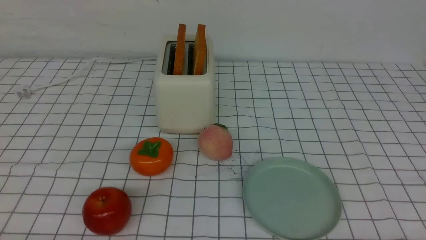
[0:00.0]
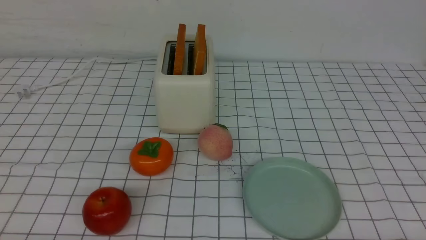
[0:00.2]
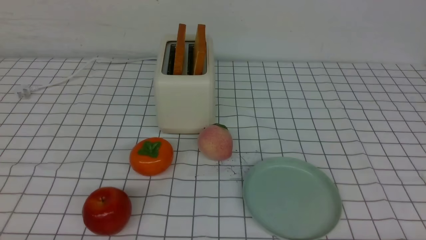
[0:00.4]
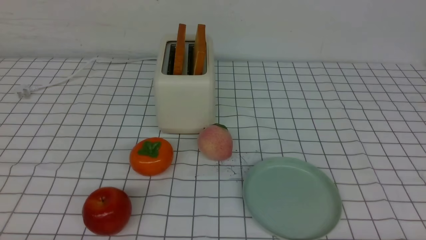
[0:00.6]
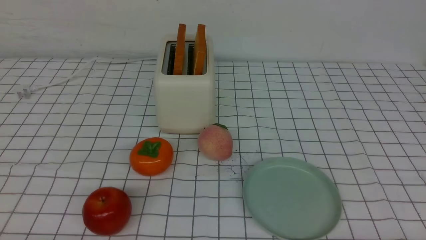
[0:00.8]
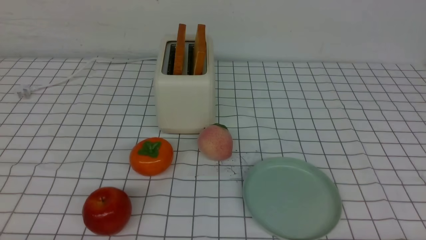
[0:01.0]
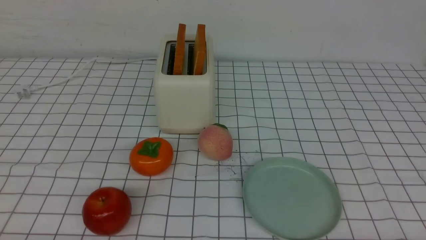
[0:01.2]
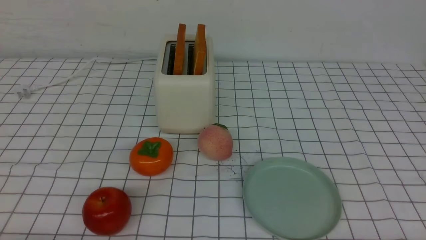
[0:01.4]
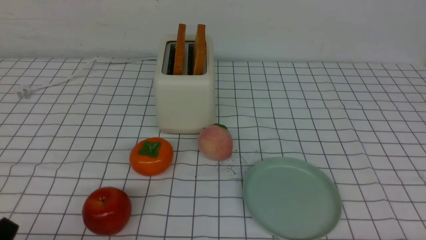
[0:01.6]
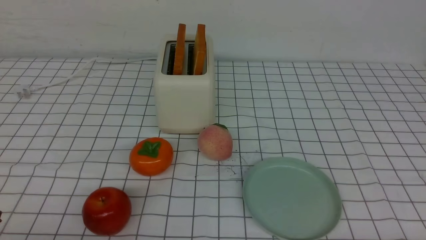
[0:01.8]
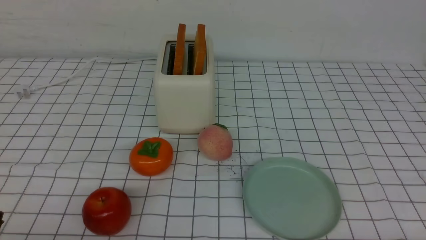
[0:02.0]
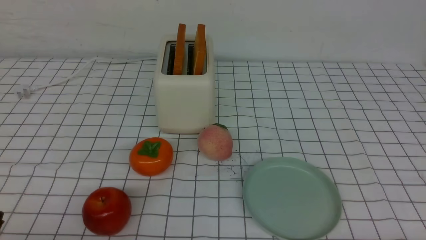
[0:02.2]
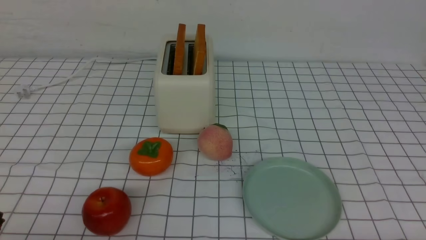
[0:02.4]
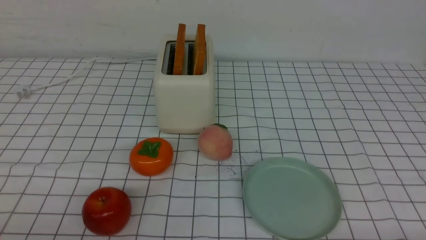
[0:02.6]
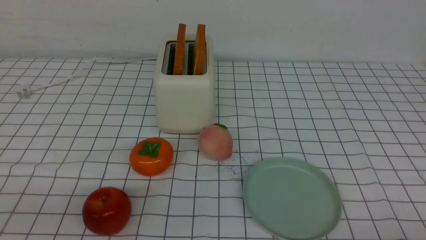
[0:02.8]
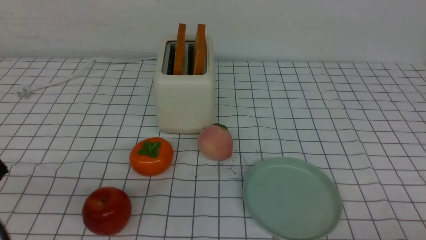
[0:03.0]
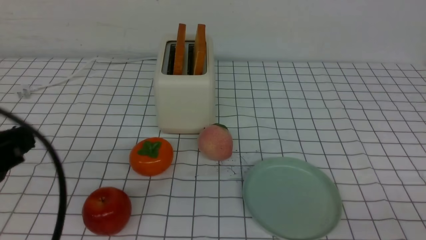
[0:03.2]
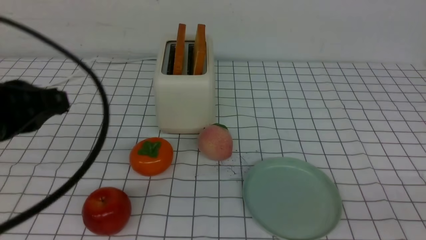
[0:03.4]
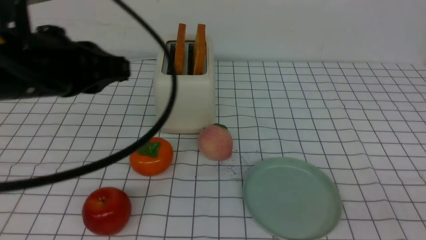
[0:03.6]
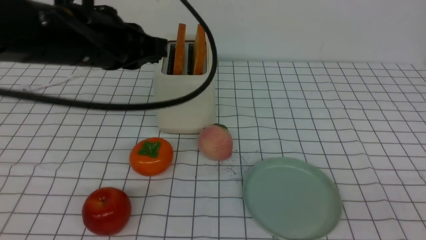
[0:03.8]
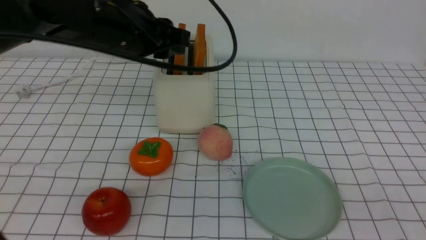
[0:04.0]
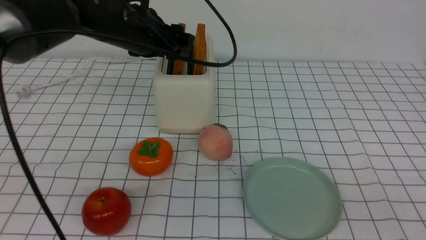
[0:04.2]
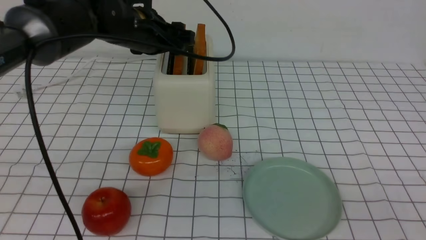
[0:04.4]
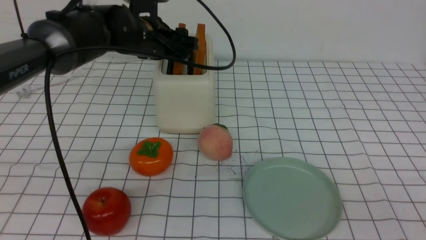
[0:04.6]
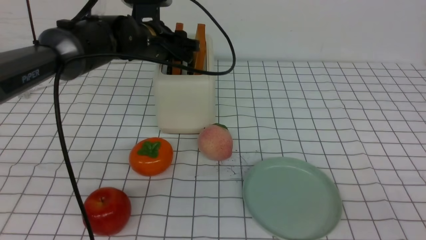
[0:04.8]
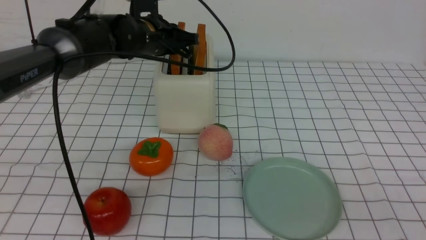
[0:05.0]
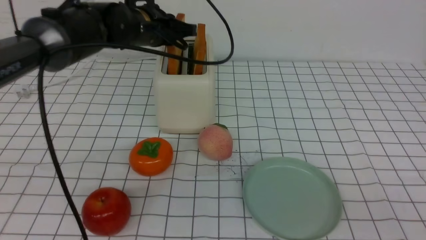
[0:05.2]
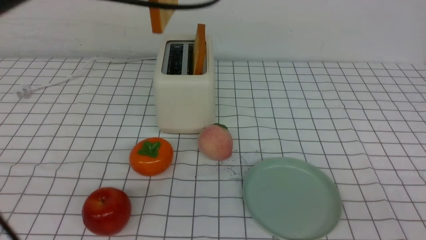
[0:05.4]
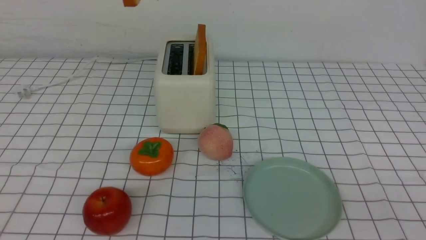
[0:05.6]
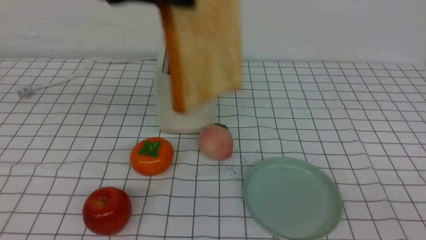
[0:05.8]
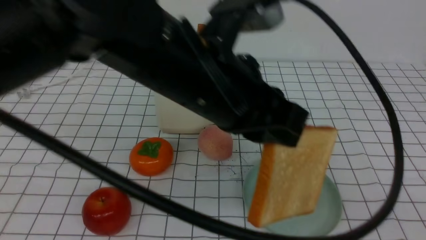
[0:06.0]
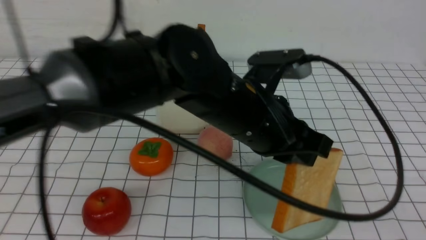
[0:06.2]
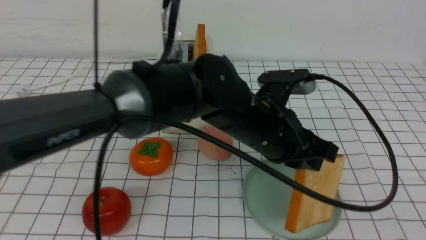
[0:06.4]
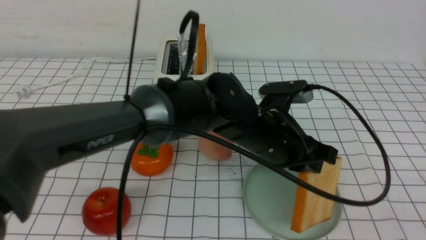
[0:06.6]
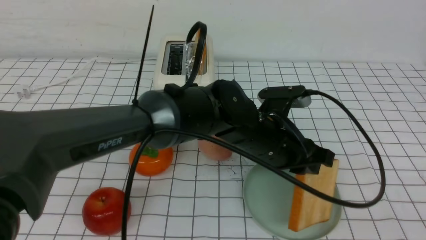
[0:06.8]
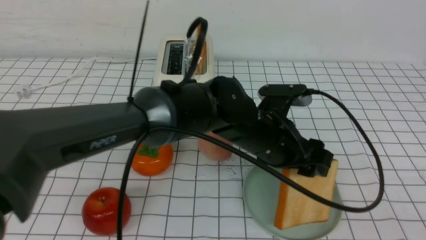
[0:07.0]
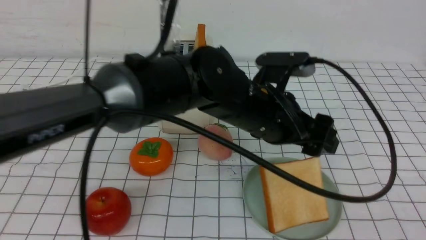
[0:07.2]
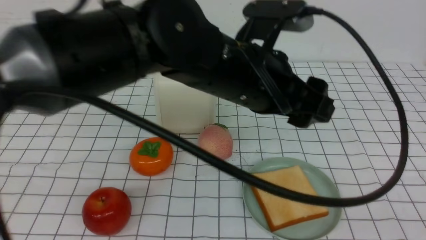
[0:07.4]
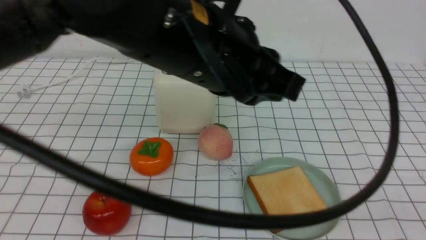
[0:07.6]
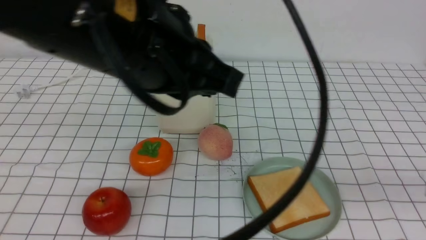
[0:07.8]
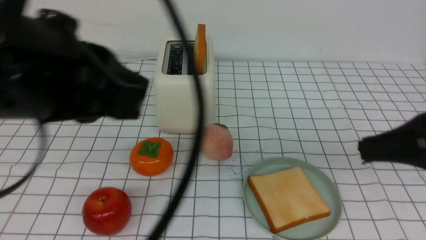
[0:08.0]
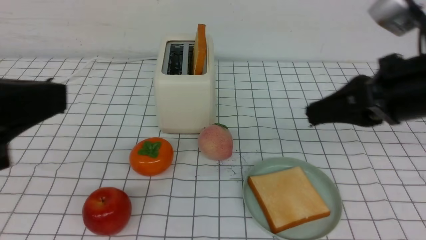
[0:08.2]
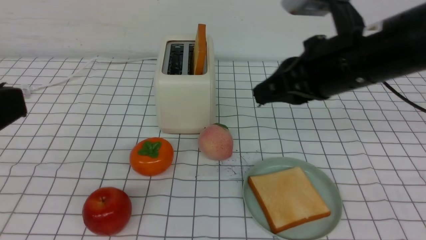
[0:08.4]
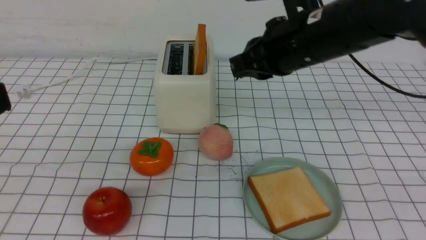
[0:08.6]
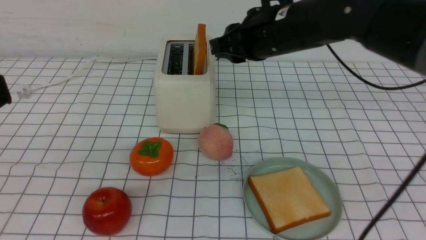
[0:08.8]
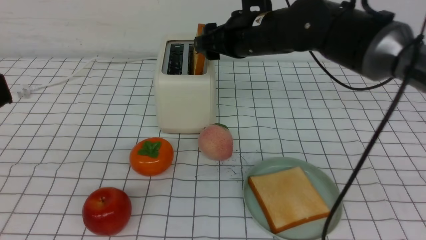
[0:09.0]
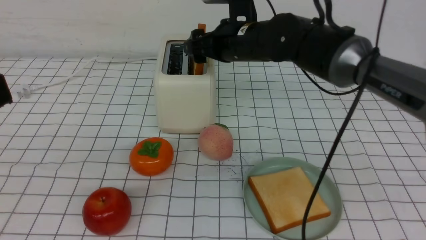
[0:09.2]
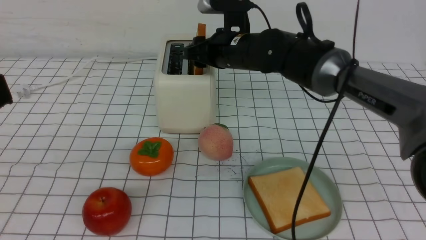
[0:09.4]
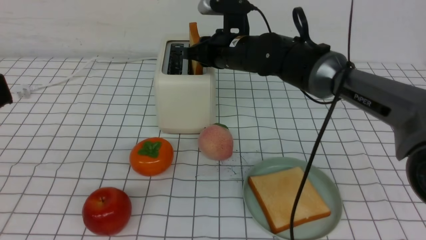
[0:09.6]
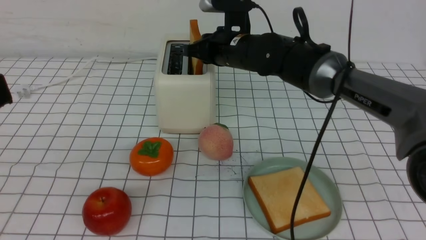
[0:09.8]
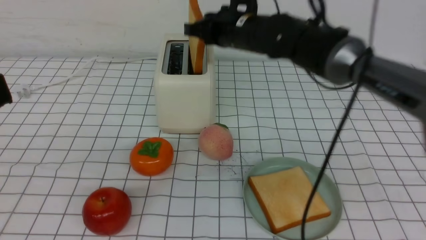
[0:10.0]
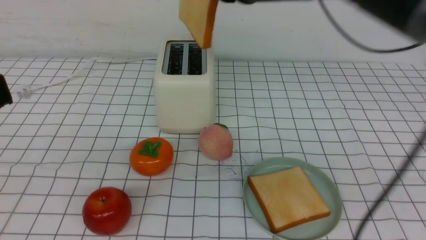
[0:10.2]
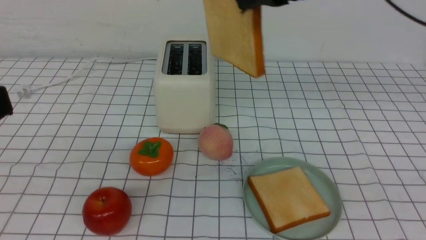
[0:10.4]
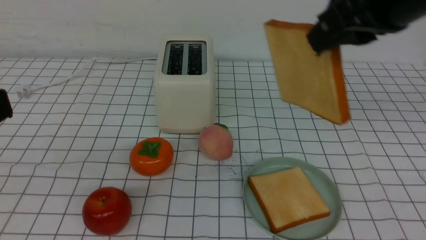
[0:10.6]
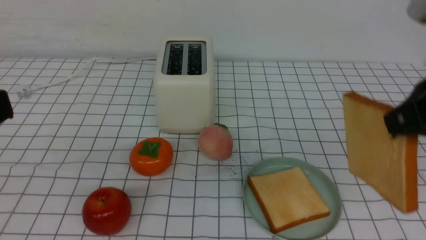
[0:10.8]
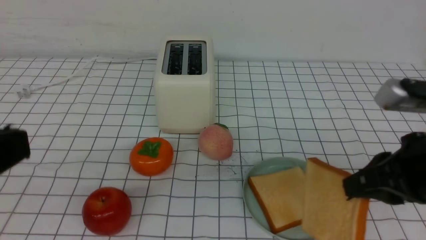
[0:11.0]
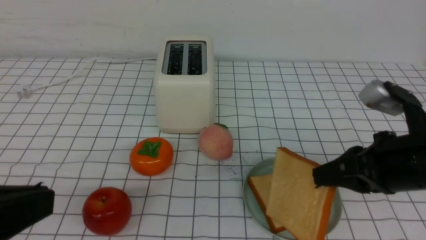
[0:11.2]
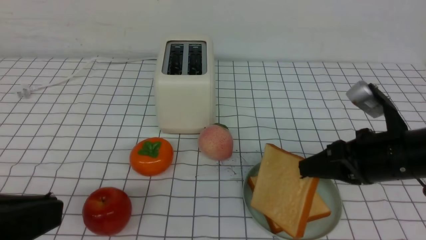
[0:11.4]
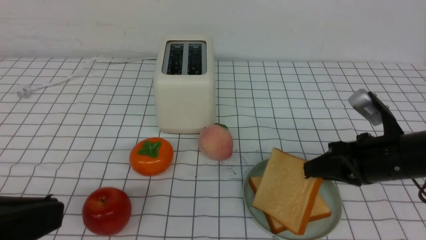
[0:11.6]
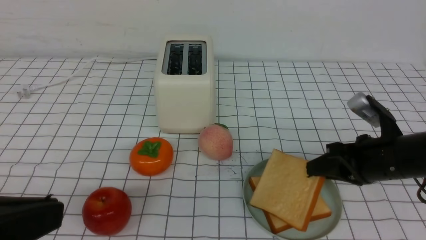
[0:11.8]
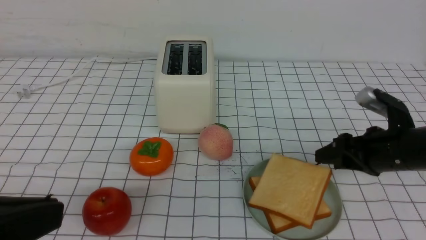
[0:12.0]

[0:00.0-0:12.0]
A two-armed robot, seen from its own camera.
Task of the whole recording: take toasted bread from bread machine on white checkered table place on plate.
Step, 0:00.0 to 0:05.2: use the left arm to take out a slice of bread.
Step, 0:05.4 to 0:07.2: use the left arm to put a slice of bread into the empty plate.
Step, 0:07.4 to 0:10.0: use the right arm to take out a slice of bread.
Step, 0:10.2 to 0:12.0: use the right arm to put a slice of bread into the plate.
0:03.0 to 0:04.4: The left gripper travels forward by approximately 35 cm, and opens its fingers, while the right gripper goes about 15 cm upward, and closes its fingers.
0:04.4 to 0:06.0: The left gripper goes approximately 20 cm backward and to the right, and closes up.
0:06.0 to 0:07.6: The left gripper travels downward and back again, some 15 cm each way, and opens and closes again.
0:07.6 to 0:09.0: The right gripper heads forward and to the left, covering about 40 cm, and opens its fingers; the left gripper moves to the left and backward, some 25 cm, and closes.
0:09.0 to 0:10.4: The right gripper shifts roughly 20 cm upward, backward and to the right, and closes up.
0:10.4 to 0:12.0: The right gripper goes roughly 25 cm downward and to the right, and opens its fingers.

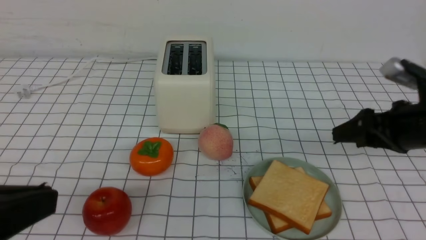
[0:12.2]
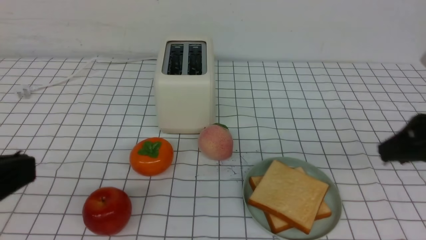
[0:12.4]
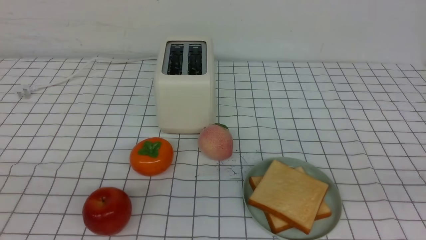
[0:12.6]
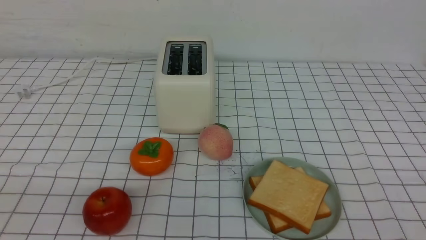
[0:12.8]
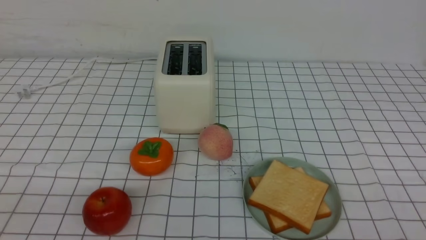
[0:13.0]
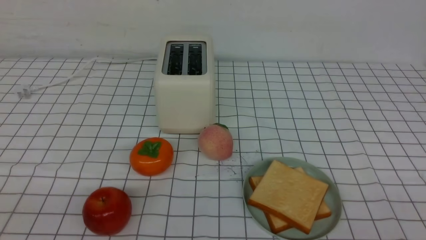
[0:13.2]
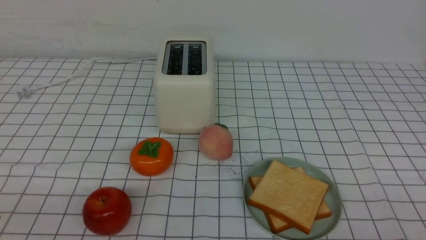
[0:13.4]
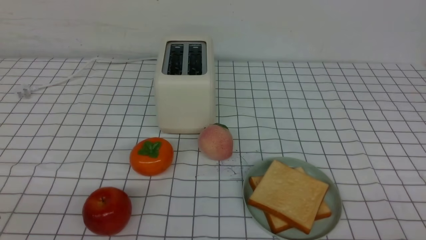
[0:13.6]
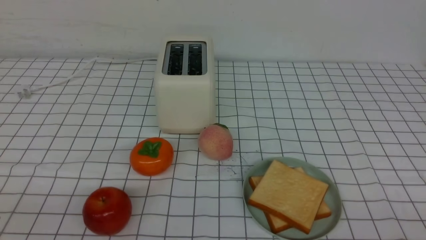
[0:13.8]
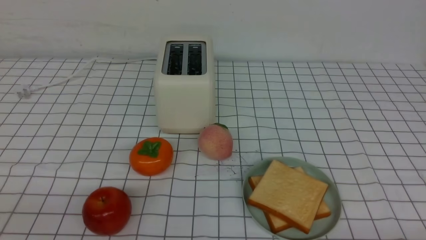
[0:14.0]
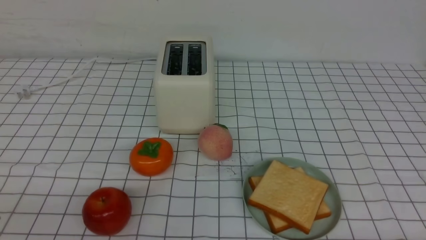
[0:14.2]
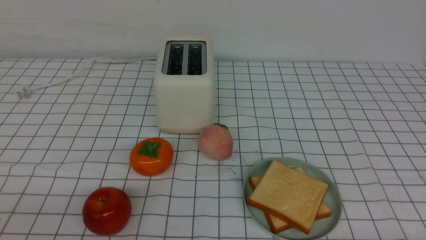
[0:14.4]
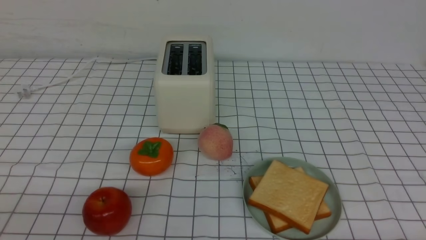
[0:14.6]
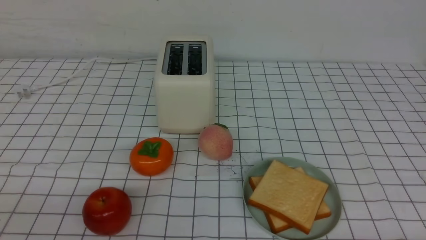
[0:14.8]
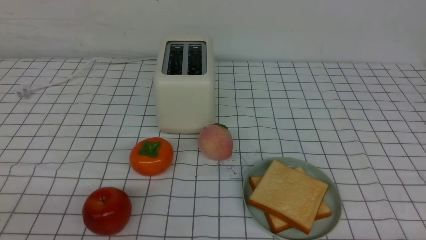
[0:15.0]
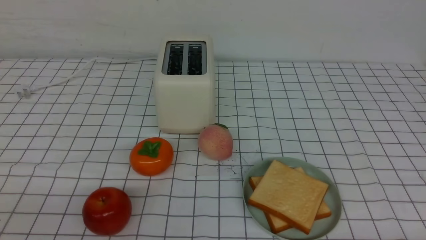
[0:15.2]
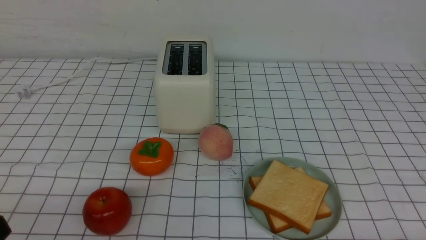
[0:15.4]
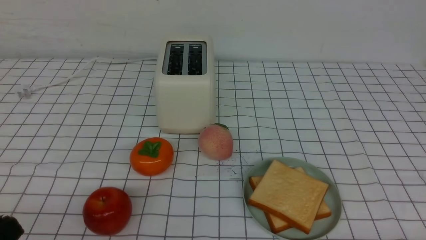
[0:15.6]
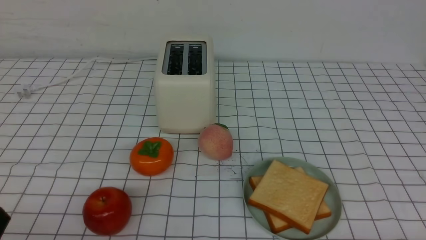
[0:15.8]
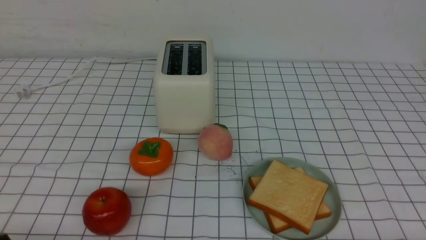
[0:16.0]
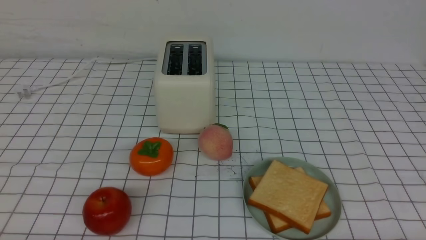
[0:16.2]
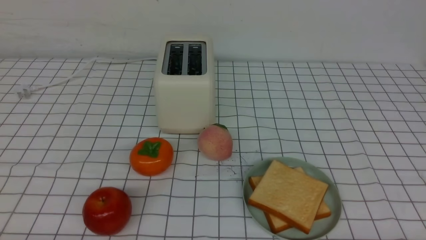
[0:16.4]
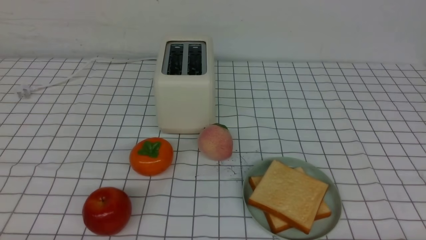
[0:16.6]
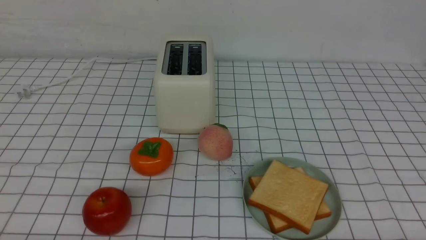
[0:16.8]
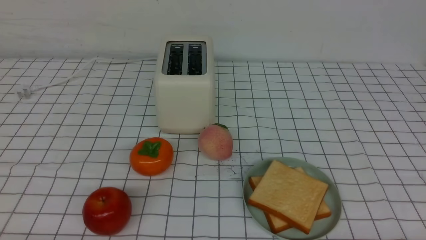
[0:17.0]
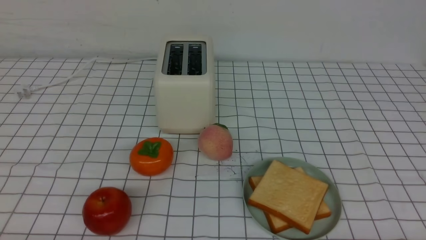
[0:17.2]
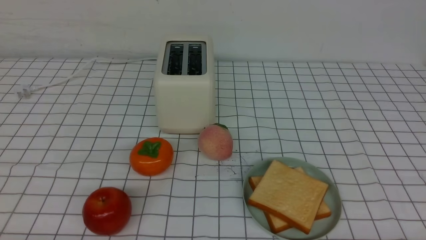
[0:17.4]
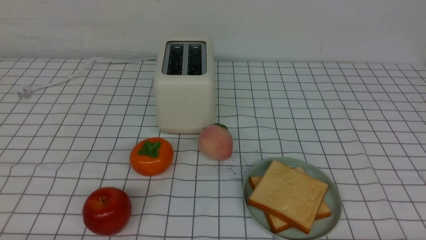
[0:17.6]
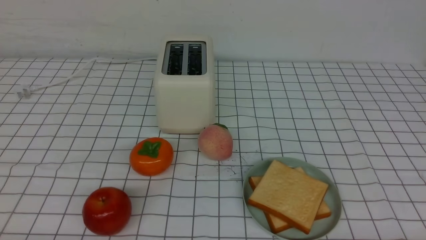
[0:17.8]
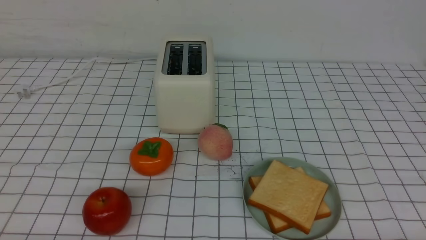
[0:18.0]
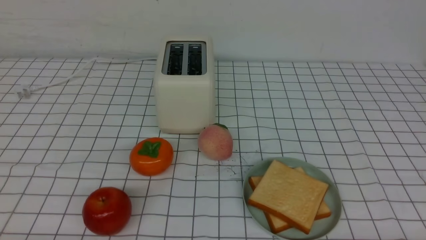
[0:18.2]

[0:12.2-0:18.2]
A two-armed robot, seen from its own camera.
Task of the whole recording: take toasted bread from bread machine on white checkered table place on plate.
0:12.2 to 0:13.8: The left gripper shifts roughly 10 cm downward. The right gripper goes approximately 20 cm backward, and closes up.
0:16.6 to 0:18.2: Both grippers stay put.
